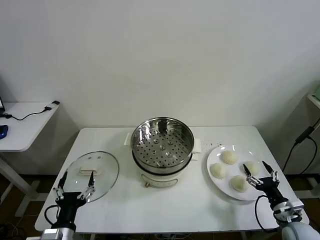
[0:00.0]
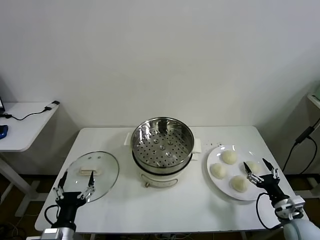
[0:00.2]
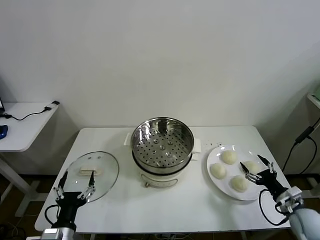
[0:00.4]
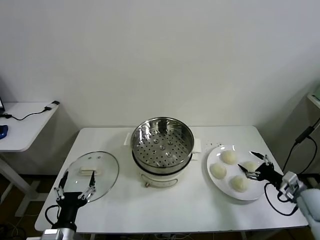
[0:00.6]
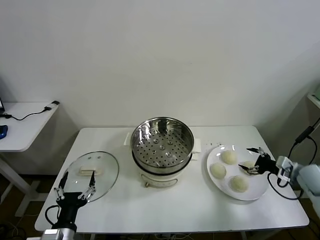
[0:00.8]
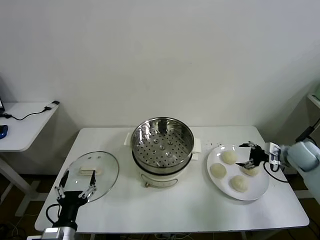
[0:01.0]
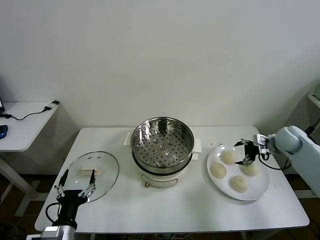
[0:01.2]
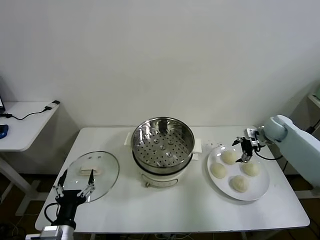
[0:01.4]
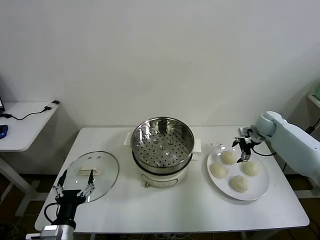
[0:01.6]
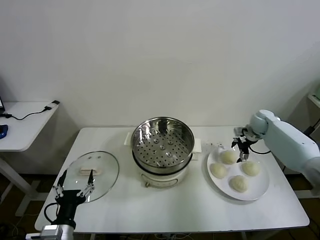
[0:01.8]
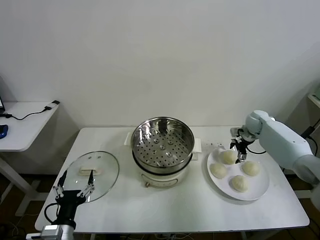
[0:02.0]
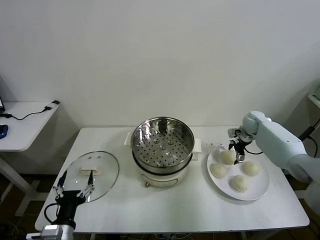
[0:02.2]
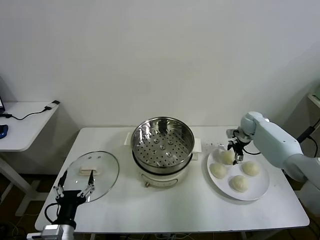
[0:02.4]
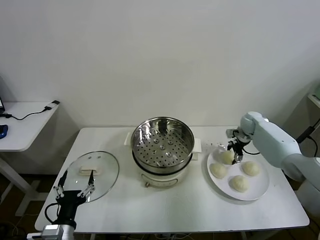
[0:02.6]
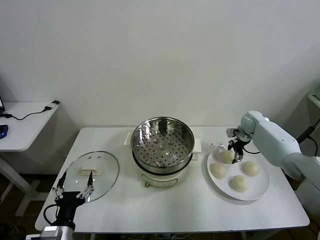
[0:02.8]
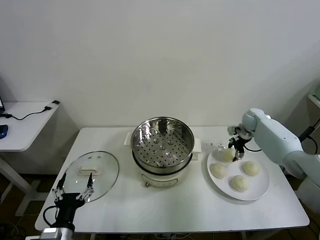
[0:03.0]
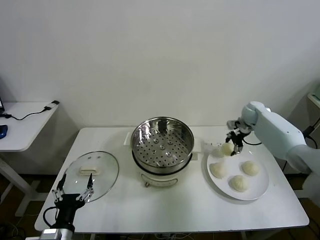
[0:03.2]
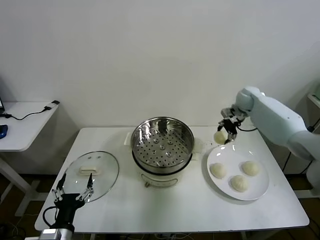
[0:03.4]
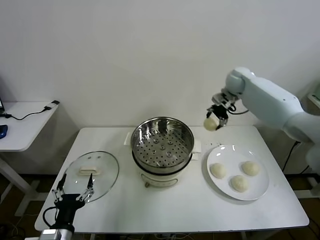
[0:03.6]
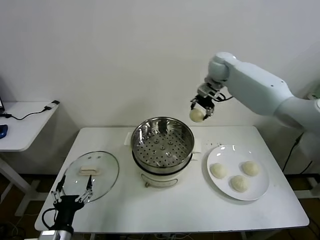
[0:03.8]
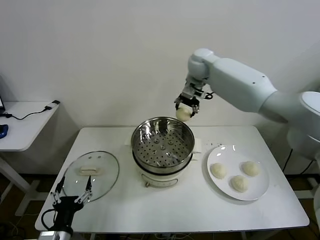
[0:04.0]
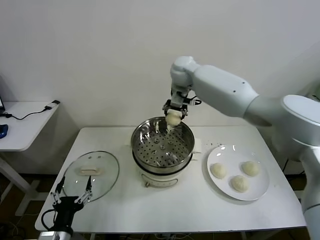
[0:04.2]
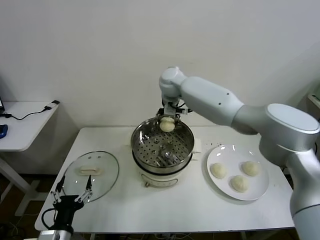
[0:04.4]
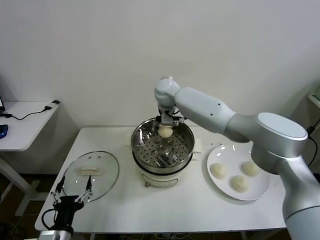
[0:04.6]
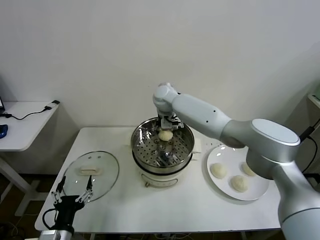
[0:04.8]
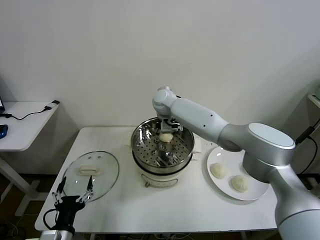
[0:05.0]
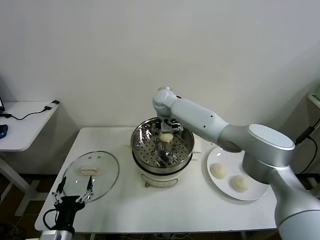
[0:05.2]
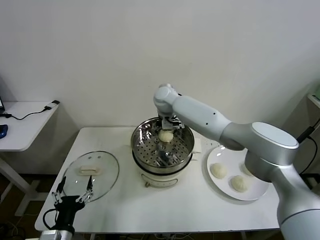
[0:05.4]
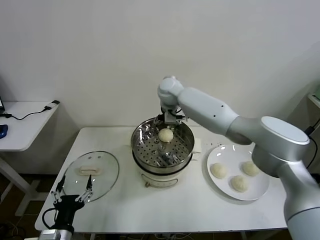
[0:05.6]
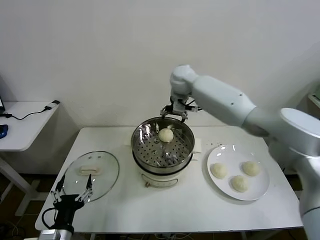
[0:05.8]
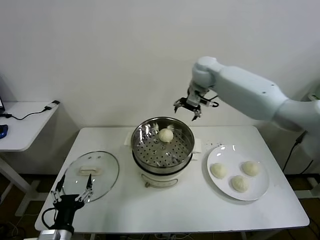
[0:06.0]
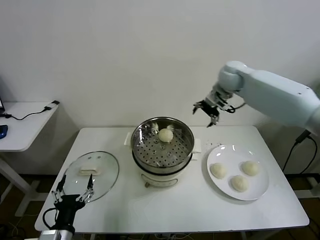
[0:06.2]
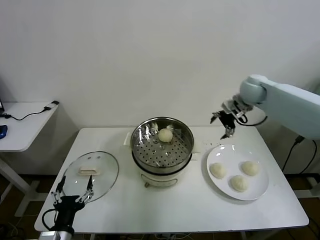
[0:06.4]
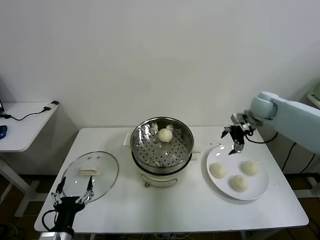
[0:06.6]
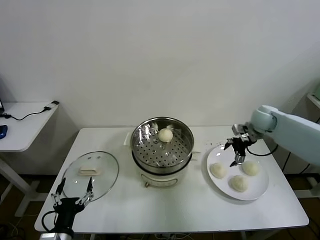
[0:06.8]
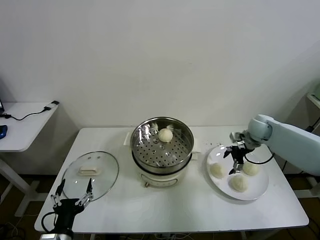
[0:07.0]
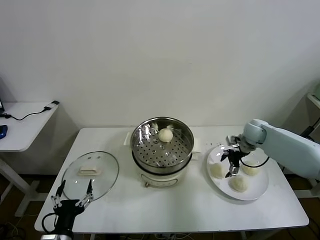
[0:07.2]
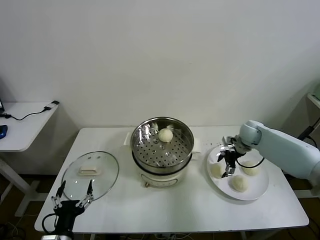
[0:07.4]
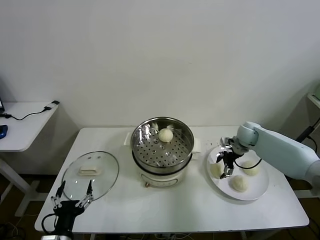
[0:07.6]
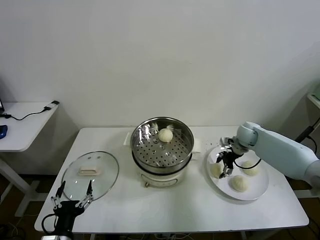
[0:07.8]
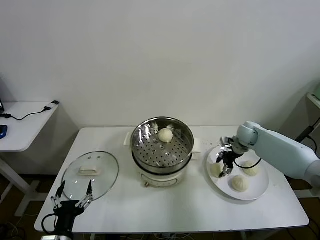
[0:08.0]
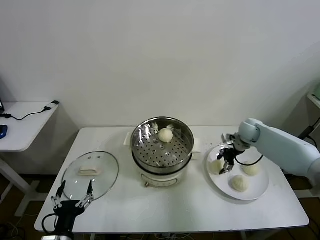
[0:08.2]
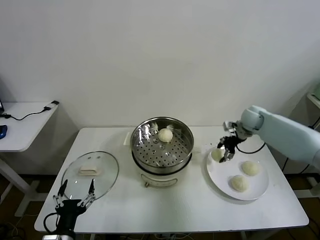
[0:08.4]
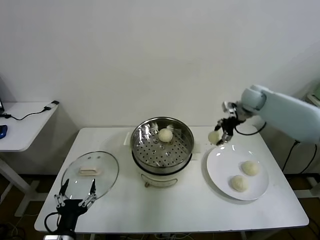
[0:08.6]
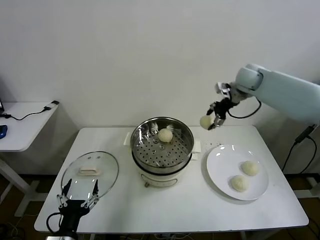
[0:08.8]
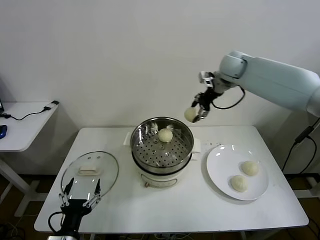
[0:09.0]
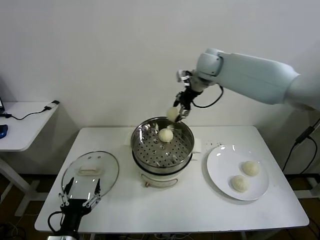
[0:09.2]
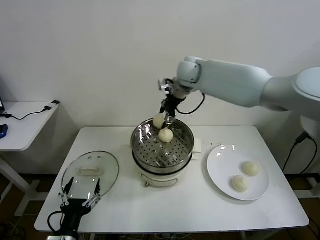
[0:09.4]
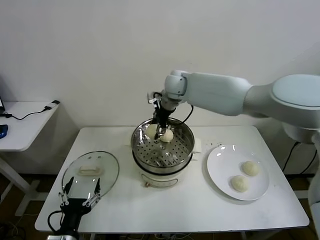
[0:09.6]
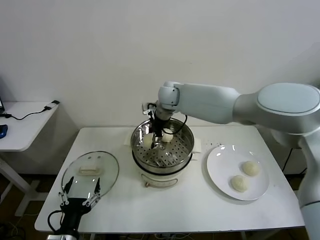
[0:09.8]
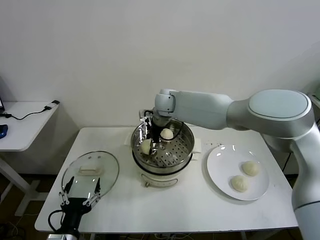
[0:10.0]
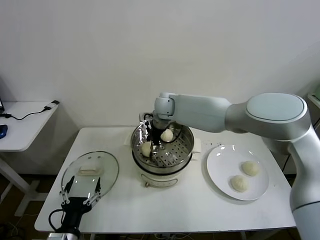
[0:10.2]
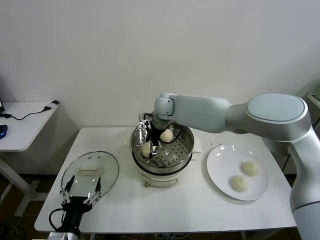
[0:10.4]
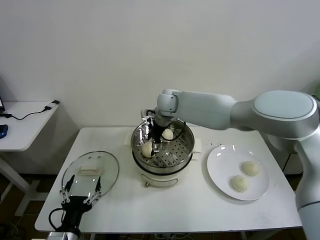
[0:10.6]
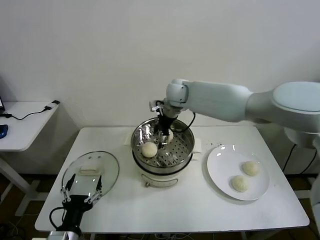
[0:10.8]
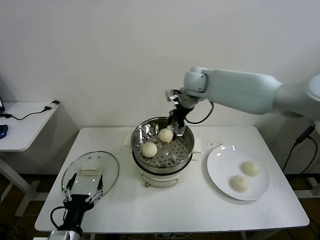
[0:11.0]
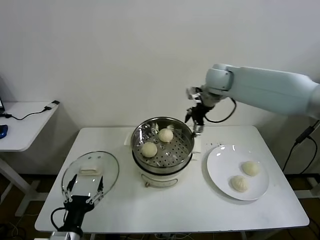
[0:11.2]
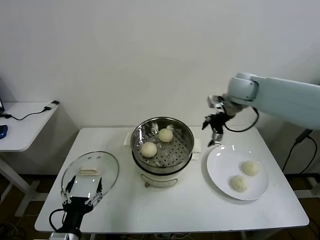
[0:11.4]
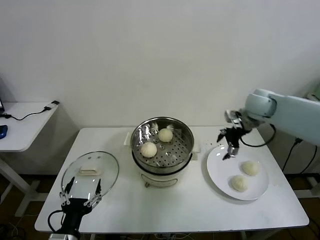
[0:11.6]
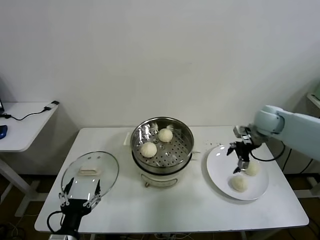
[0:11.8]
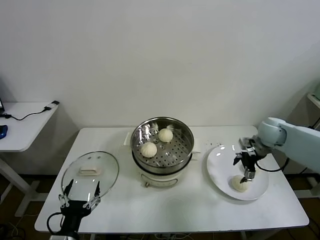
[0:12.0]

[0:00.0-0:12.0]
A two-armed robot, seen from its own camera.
Task of the whole recording: take steamed baozi put them in steamer then cover it.
Step, 0.0 to 2.8 s: Grasp the baozi in the plate with right gripper.
Step, 3.0 to 5.4 s: Place the baozi on the steamer with right gripper.
Step, 5.6 to 7.8 s: Grasp the baozi in the plate with right gripper.
Step, 8.0 to 10.6 s: Place the baozi on the steamer with right gripper.
1.6 to 3.0 s: The right gripper closes up.
3.0 to 4.4 s: The right gripper moves to the left and upward, about 40 cm.
4.4 to 6.0 s: The right gripper moves to the right, roughly 15 cm, and opens.
6.0 to 7.6 s: The right gripper heads downward and to the right, covering some 30 cm.
7.6 to 9.0 s: The right gripper is displaced upward and to the left by approximately 30 cm, and closes.
9.0 to 10.4 s: The right gripper is displaced to the left and downward by about 25 cm, and opens its fingers.
10.4 to 12.0 s: The right gripper heads to the right, covering about 40 cm.

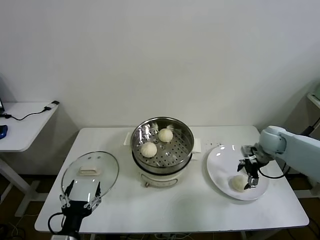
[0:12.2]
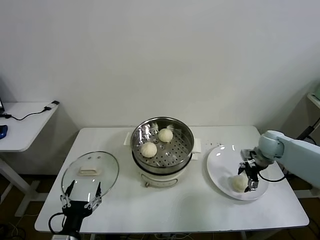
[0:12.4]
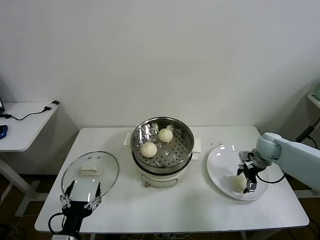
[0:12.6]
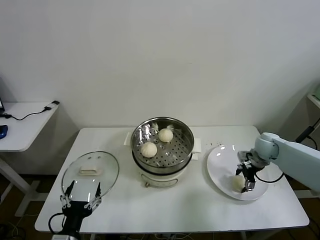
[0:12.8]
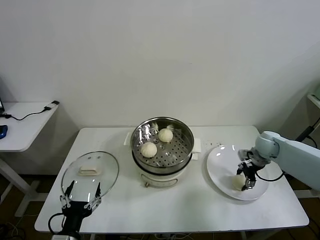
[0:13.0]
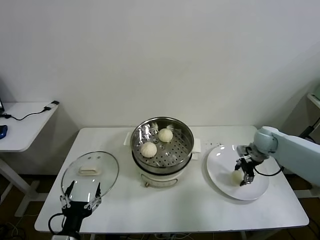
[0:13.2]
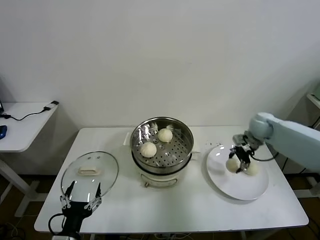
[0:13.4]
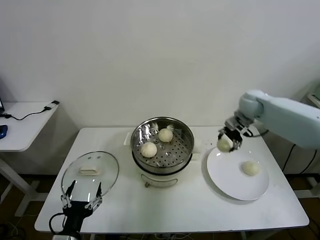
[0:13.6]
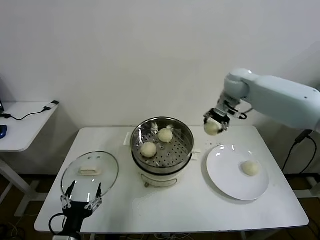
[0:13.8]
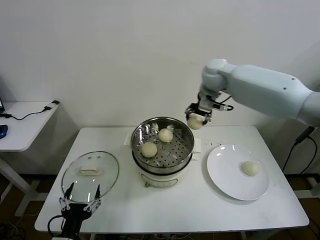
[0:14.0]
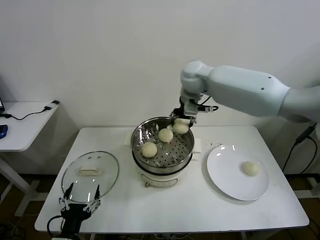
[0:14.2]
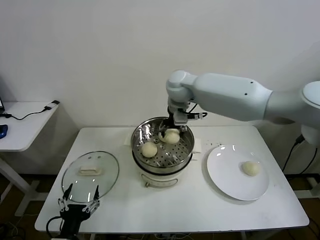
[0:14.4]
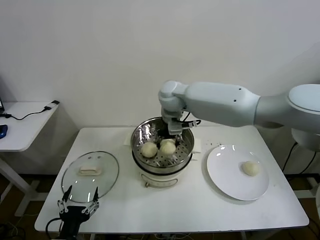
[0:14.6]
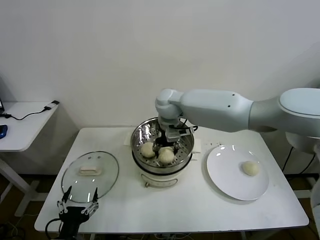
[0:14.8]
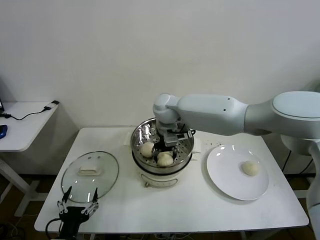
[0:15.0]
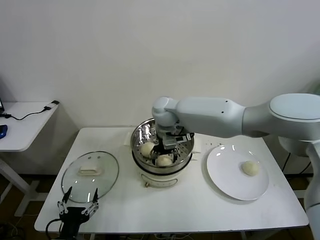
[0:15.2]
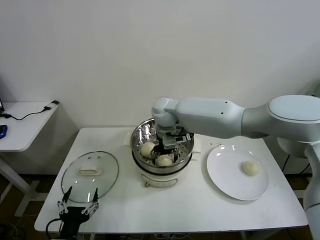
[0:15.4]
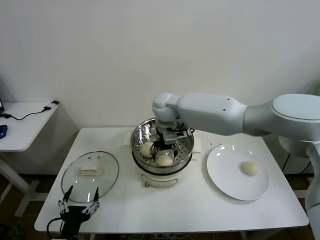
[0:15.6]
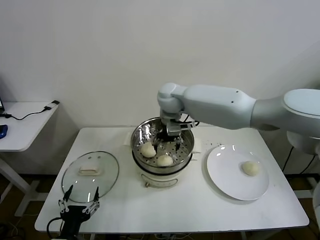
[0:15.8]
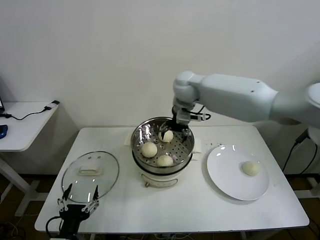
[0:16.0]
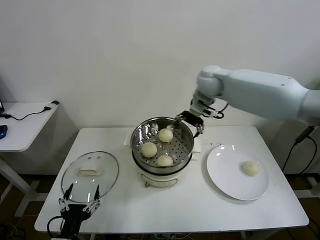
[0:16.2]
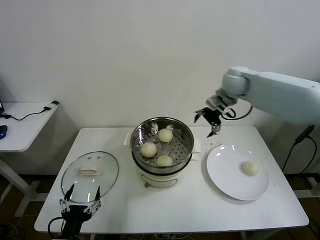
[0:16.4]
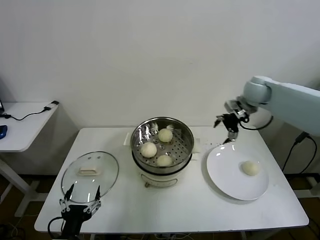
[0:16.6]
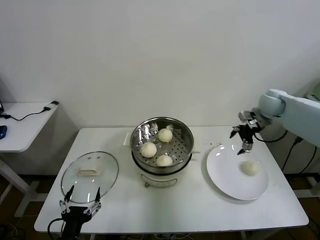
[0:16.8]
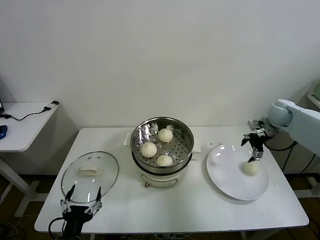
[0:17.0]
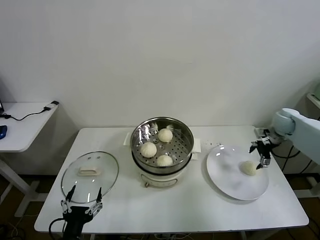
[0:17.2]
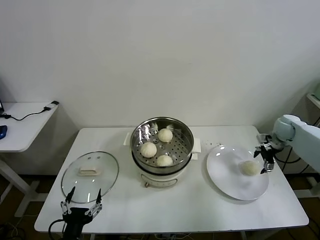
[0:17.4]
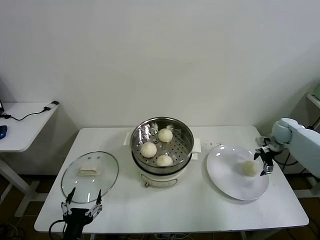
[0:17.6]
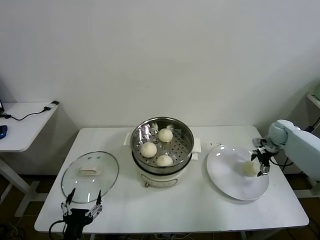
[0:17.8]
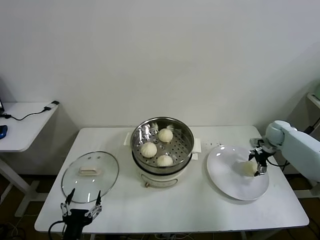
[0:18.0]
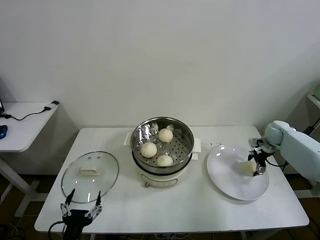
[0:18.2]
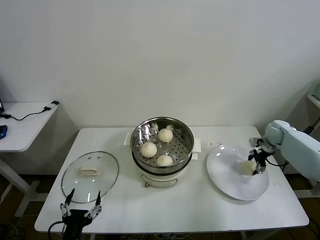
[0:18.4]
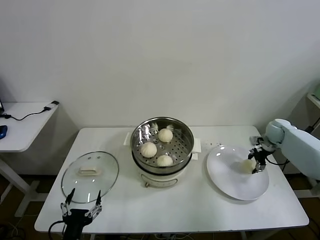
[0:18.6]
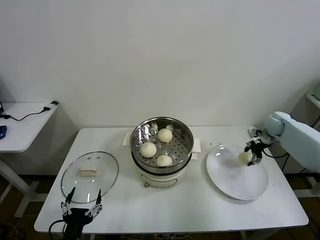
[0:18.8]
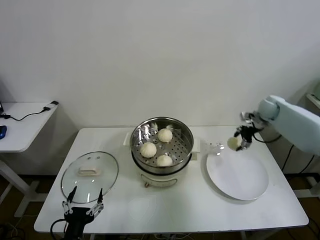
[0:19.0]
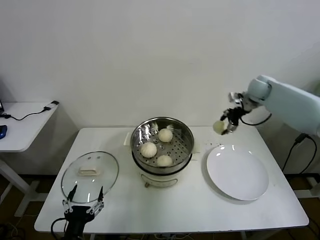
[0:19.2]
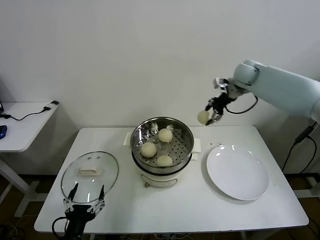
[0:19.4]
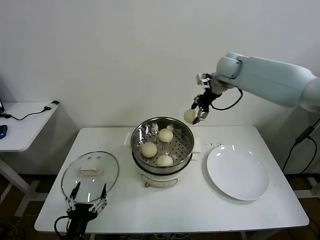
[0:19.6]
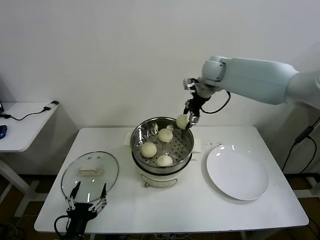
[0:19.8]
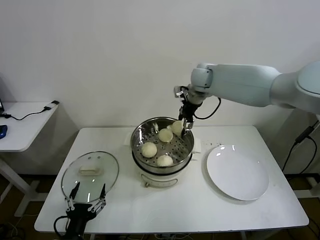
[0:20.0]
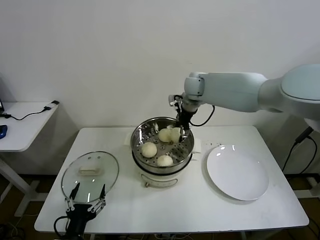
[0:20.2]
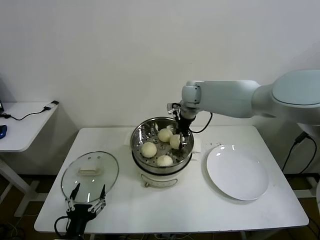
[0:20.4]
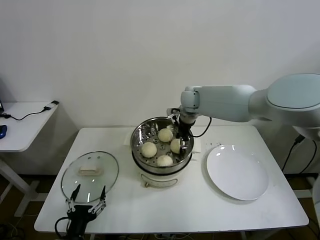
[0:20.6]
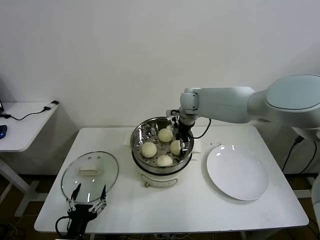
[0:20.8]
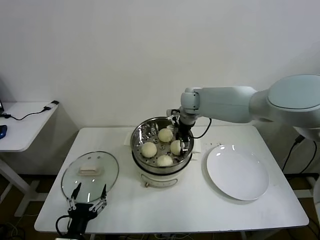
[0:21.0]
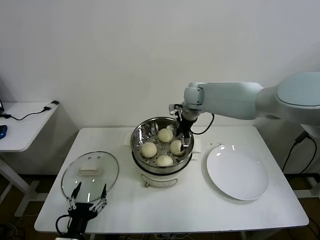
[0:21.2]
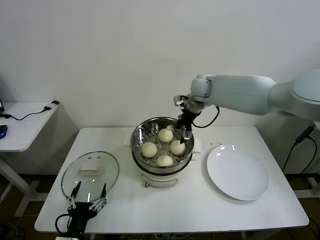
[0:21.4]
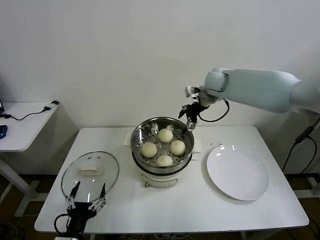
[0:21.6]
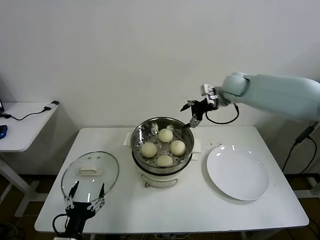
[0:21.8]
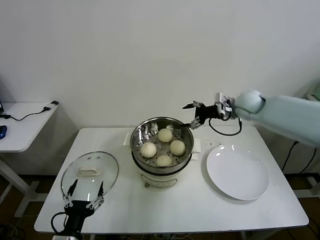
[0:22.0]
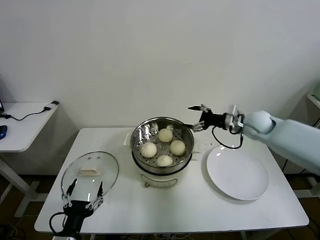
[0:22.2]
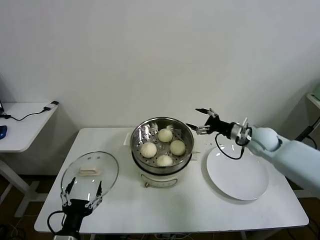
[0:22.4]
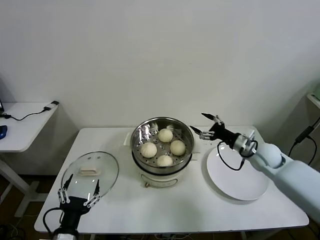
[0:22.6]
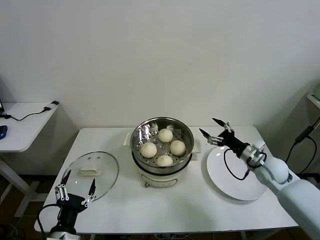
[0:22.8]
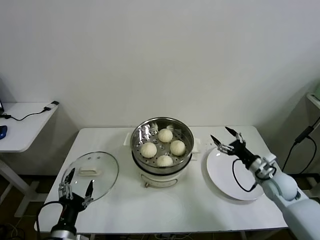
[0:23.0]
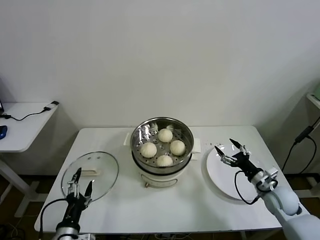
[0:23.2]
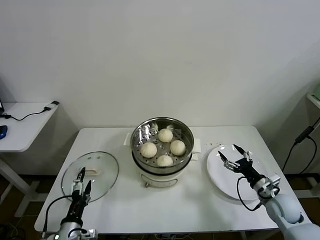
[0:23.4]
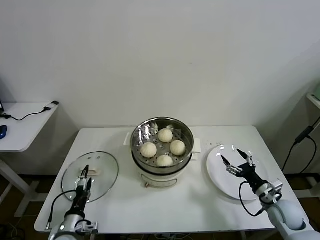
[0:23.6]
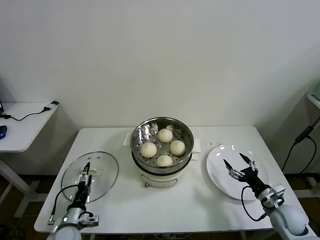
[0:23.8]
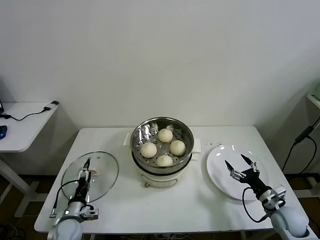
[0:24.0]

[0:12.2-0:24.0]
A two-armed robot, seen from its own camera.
Task of the whole recording: take steamed baozi put them in steamer then cover it.
Step, 13.2 to 15.6 s: Place the baozi on the steamer with right gripper.
Step, 16.0 to 18.4 s: Grasp the baozi in the plate with right gripper.
Step, 18.6 to 21.2 s: Place the baozi on the steamer with right gripper.
12.2 to 13.6 s: The right gripper shifts some 20 cm upward, to the left and forward, and closes its fingers.
13.6 to 15.2 s: The right gripper heads to the left, covering about 30 cm, and opens.
15.2 to 16.6 s: The right gripper moves to the right, some 35 cm.
16.6 to 18.2 s: The right gripper shifts some 20 cm downward and to the right.
18.2 to 19.6 s: The right gripper goes approximately 35 cm upward and to the left, and closes.
19.6 to 21.0 s: The right gripper moves downward and to the left, roughly 15 cm, and opens.
21.0 to 22.6 s: The right gripper moves to the right, backward and downward, approximately 30 cm.
22.6 to 24.0 s: The right gripper is displaced backward and downward by roughly 20 cm; the left gripper goes some 20 cm downward, forward and to the left.
